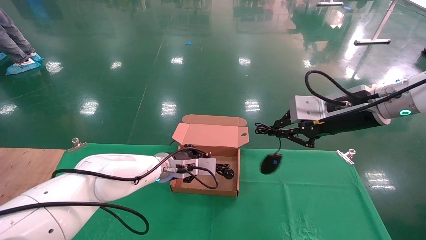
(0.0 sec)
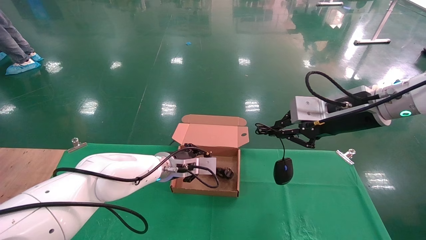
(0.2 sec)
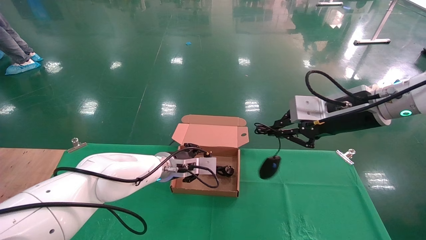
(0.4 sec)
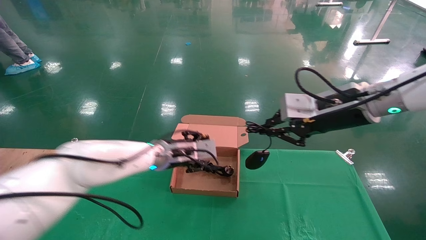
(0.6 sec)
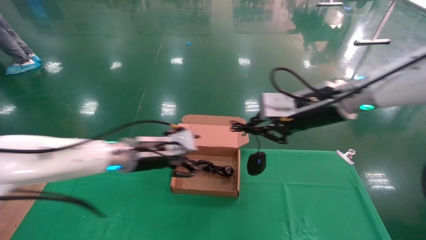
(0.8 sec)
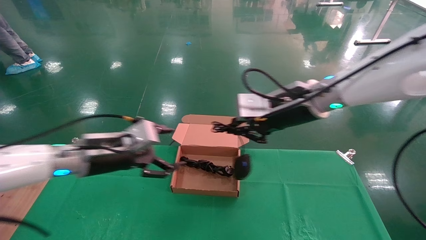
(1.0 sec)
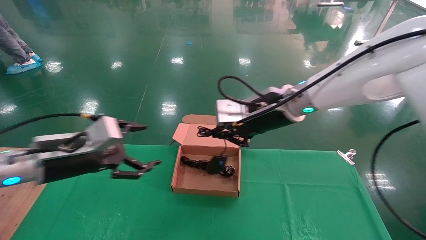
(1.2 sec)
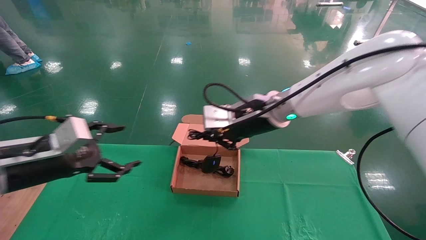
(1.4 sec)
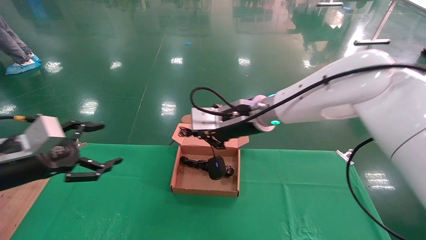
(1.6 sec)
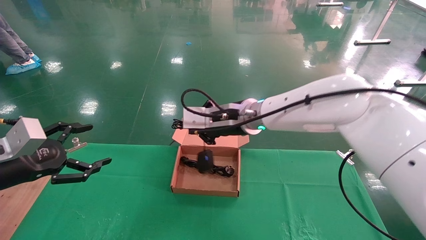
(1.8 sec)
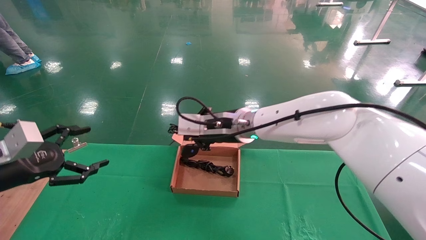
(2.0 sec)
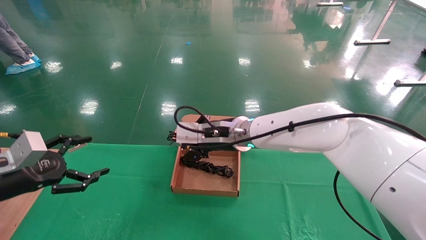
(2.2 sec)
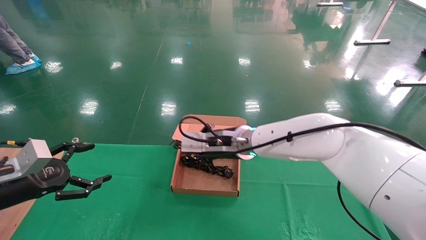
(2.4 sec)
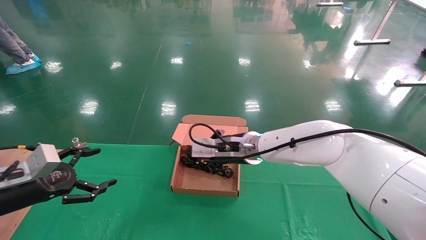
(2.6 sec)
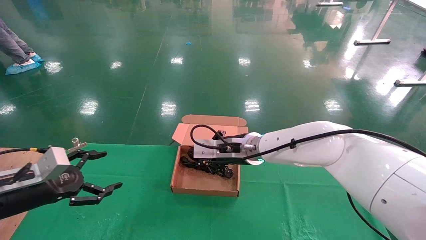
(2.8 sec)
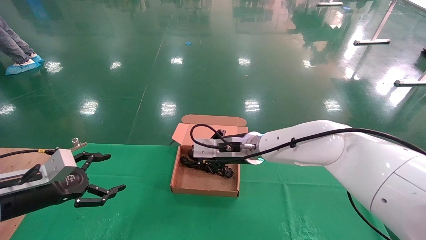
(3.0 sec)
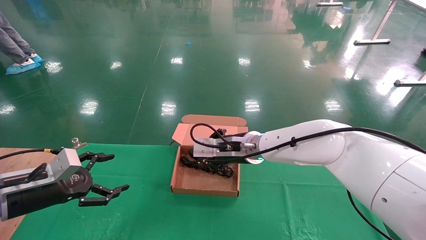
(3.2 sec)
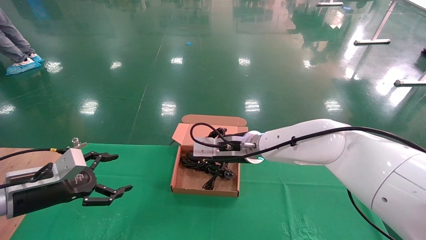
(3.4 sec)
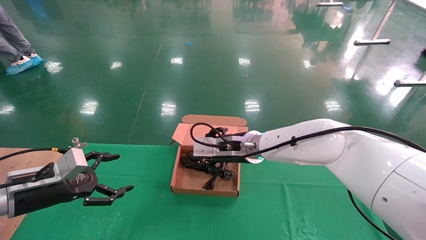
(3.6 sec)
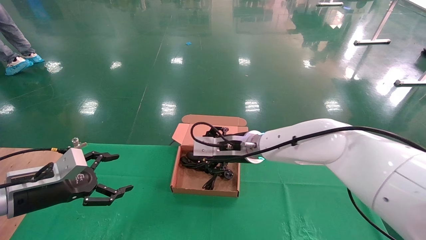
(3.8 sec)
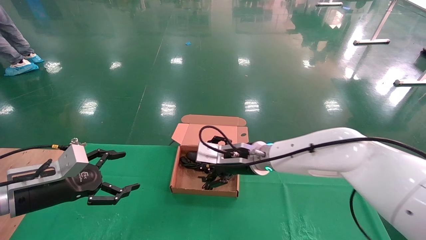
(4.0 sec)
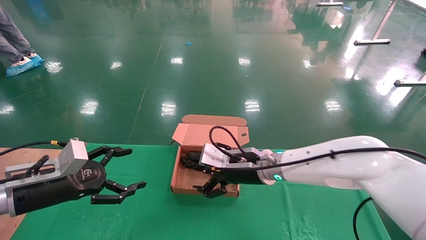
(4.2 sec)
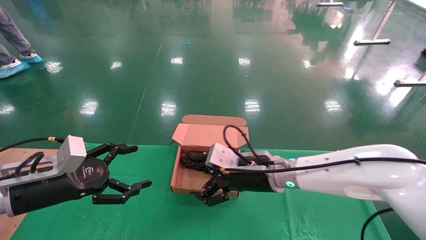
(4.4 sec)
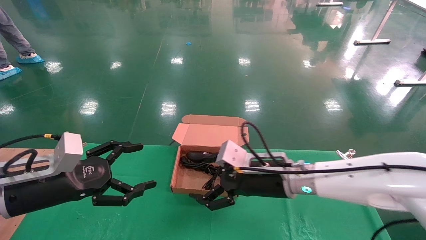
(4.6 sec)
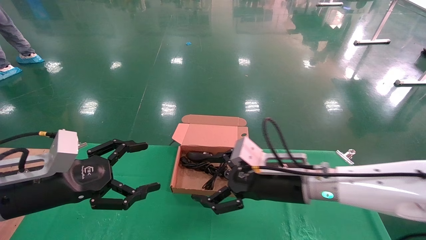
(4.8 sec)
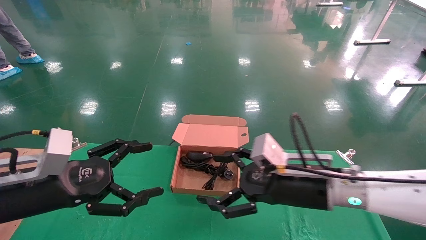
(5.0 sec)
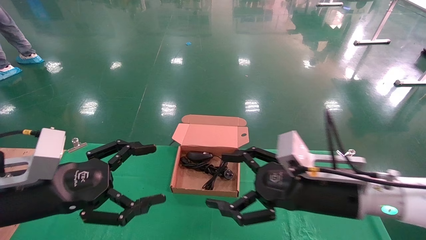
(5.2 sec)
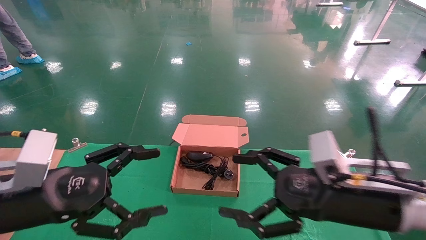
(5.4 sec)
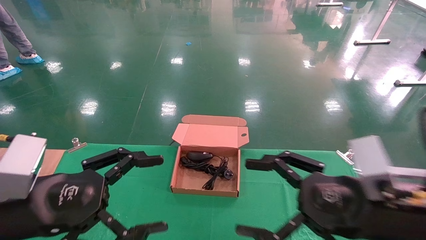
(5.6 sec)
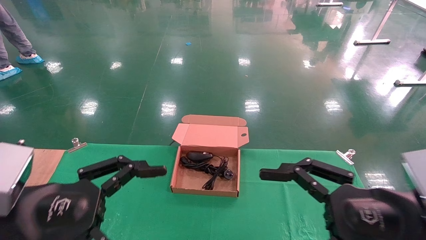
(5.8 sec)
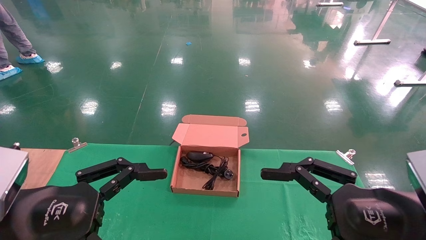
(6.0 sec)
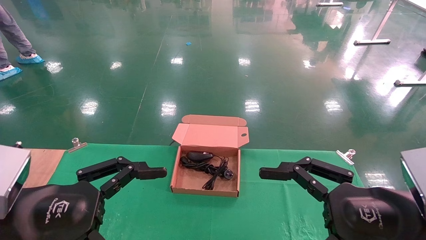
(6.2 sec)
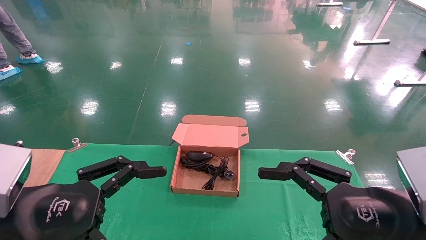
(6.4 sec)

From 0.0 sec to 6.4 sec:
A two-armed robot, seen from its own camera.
Step, from 0.0 sec to 2.6 sec: Place the mouse and power cord into the box.
From 0.0 sec to 1.6 sec: The right gripper heads to the left, covering approximately 20 cm. The left gripper travels to the left and backward by about 30 cm, and opens up.
From 1.6 sec to 3.2 sec: The two grippers go approximately 10 cm downward.
From 3.2 sec to 4.8 sec: The left gripper moves to the right, backward and upward, about 10 cm, while the right gripper shifts roughly 15 cm backward and to the right, and opens its fingers.
From 4.8 sec to 6.4 sec: The right gripper heads backward and to the right, covering about 20 cm, while the left gripper shifts some 10 cm backward.

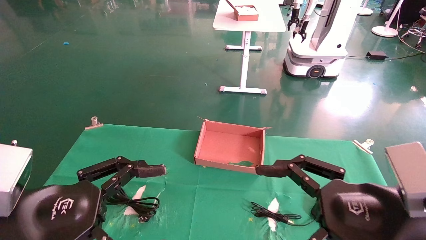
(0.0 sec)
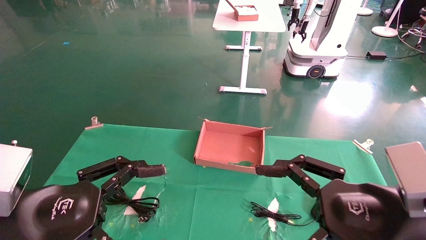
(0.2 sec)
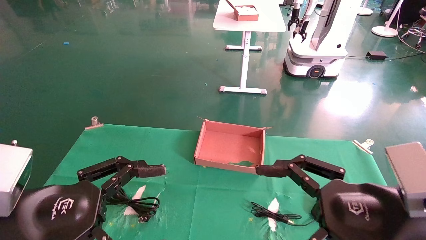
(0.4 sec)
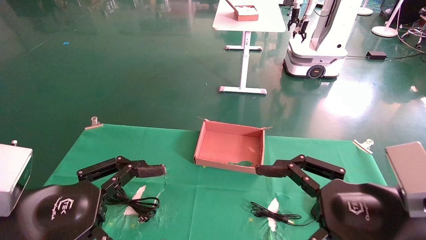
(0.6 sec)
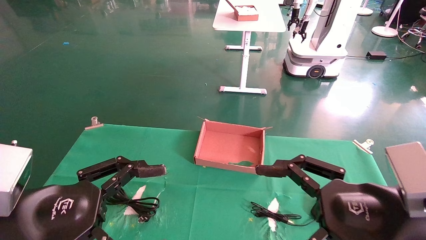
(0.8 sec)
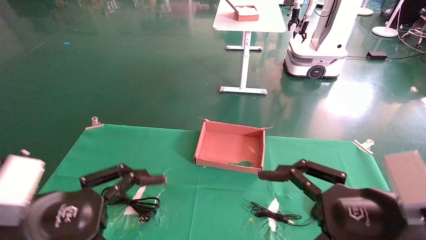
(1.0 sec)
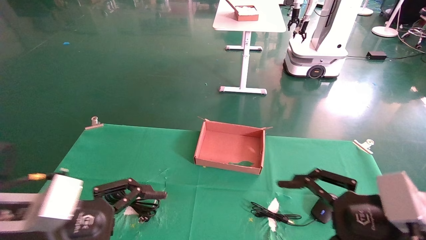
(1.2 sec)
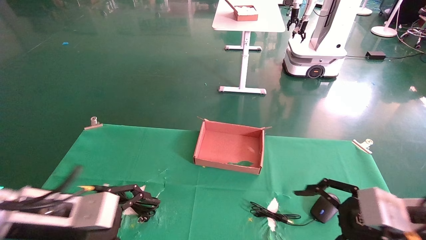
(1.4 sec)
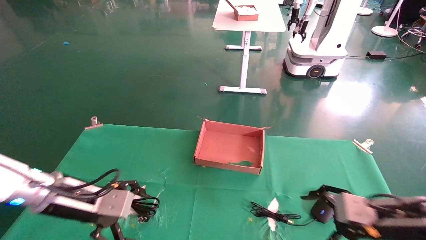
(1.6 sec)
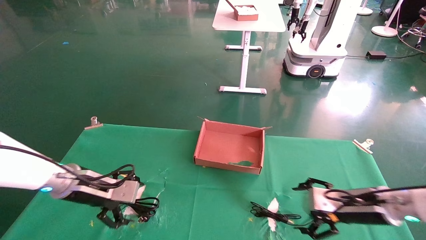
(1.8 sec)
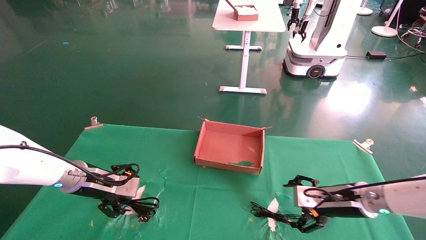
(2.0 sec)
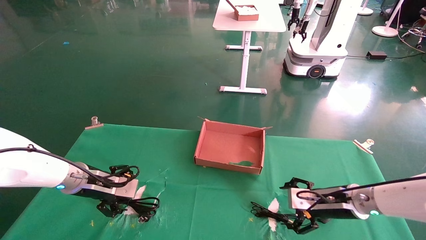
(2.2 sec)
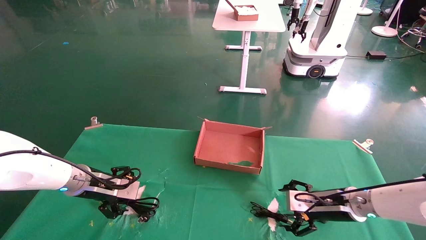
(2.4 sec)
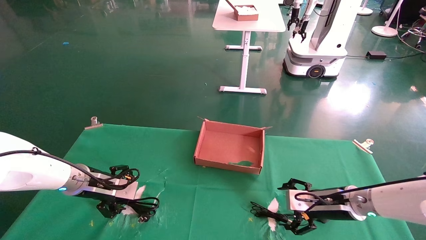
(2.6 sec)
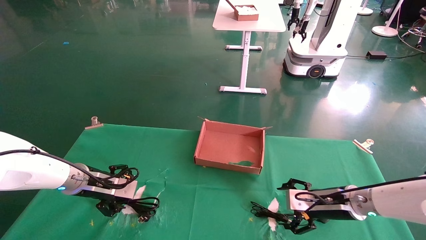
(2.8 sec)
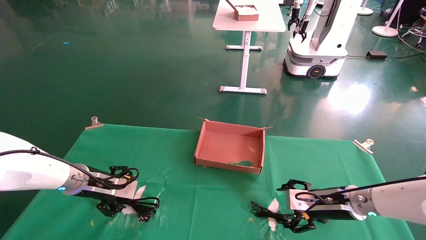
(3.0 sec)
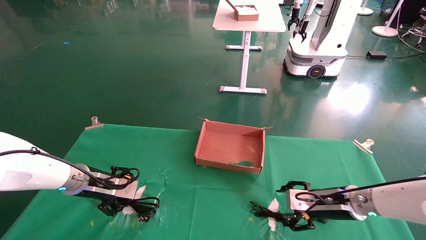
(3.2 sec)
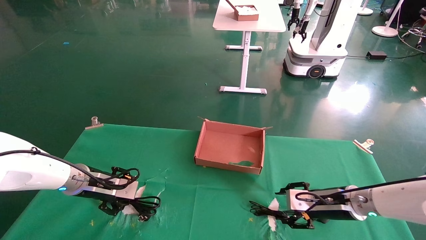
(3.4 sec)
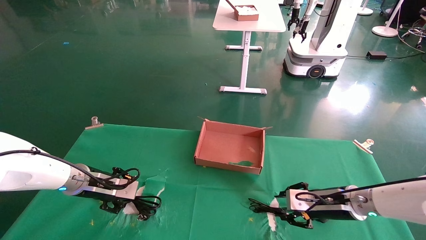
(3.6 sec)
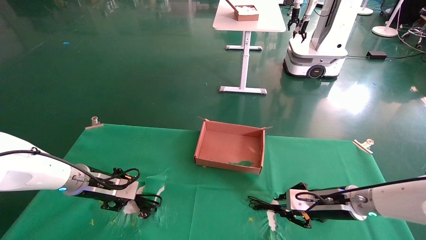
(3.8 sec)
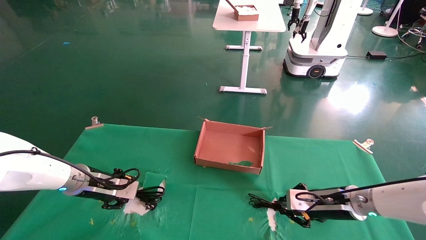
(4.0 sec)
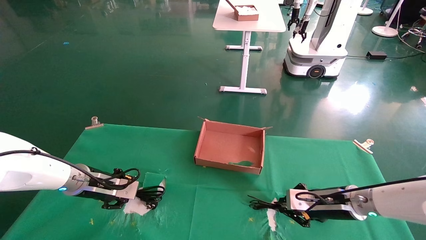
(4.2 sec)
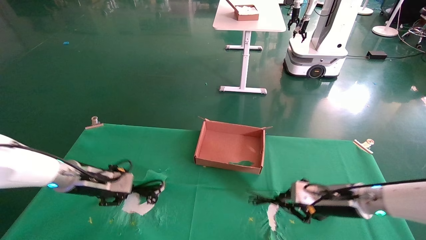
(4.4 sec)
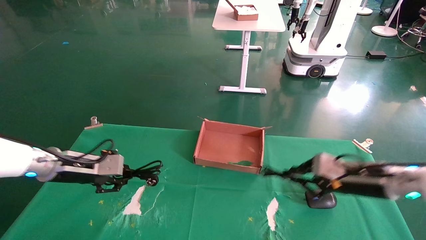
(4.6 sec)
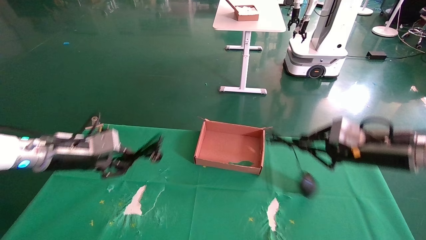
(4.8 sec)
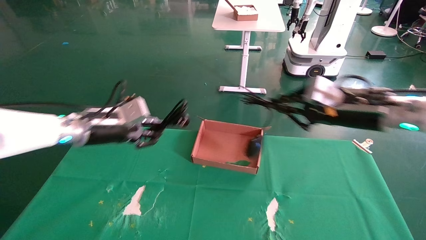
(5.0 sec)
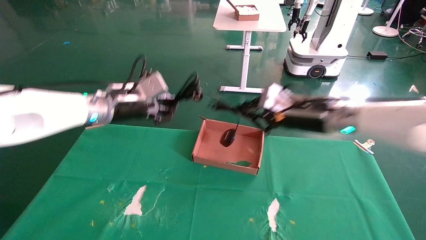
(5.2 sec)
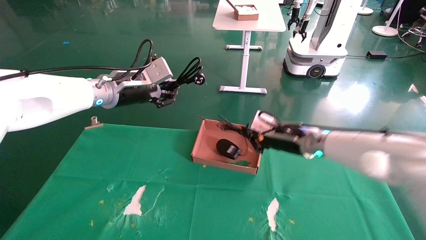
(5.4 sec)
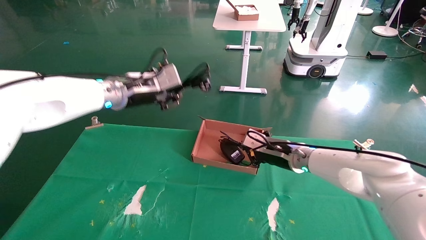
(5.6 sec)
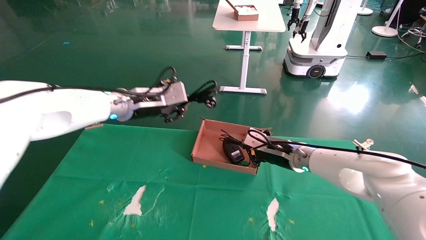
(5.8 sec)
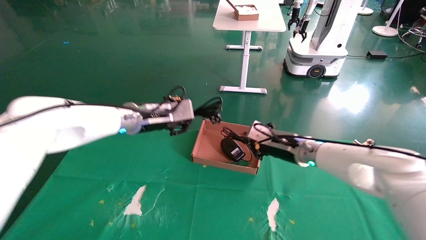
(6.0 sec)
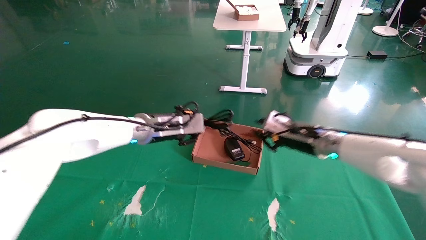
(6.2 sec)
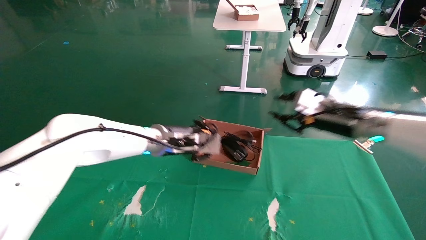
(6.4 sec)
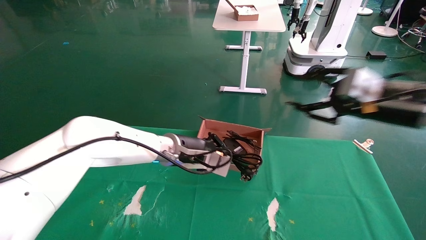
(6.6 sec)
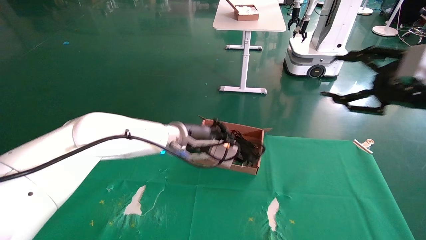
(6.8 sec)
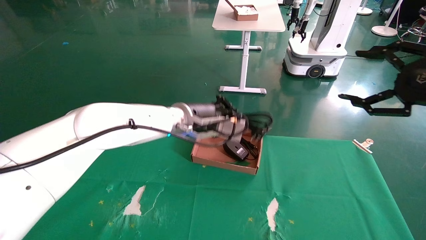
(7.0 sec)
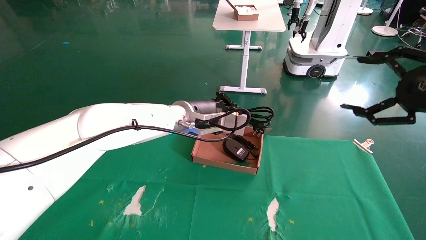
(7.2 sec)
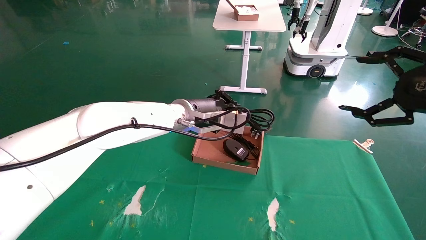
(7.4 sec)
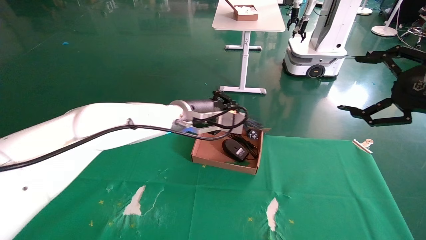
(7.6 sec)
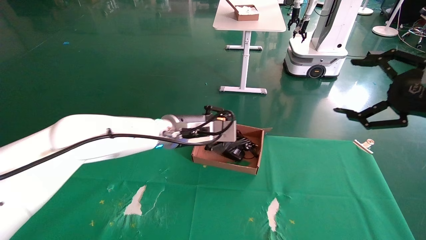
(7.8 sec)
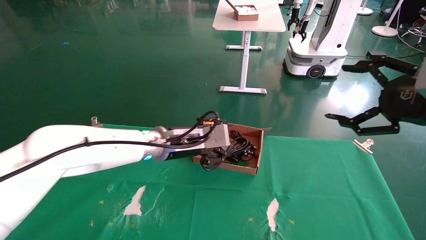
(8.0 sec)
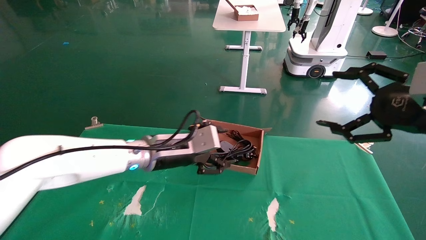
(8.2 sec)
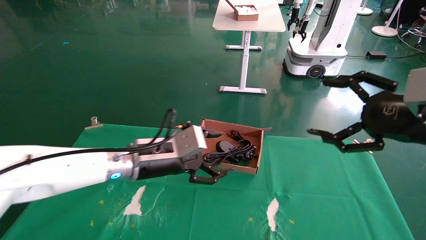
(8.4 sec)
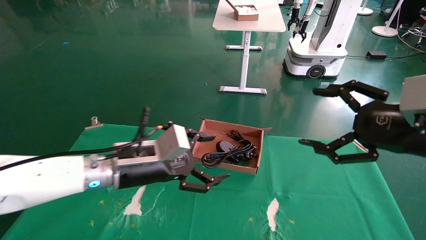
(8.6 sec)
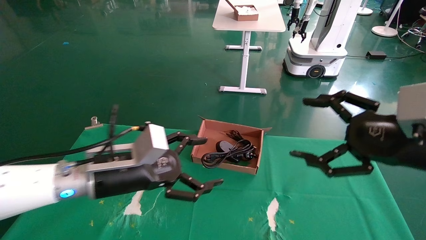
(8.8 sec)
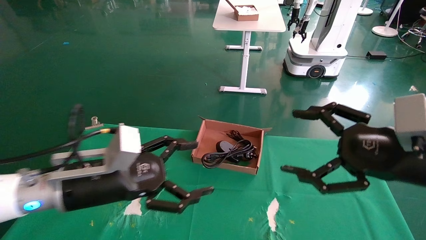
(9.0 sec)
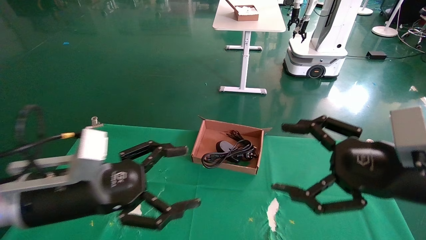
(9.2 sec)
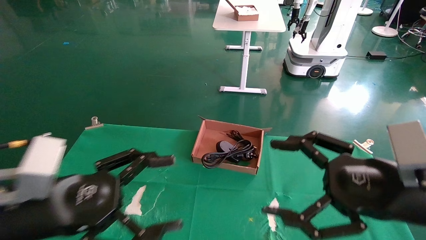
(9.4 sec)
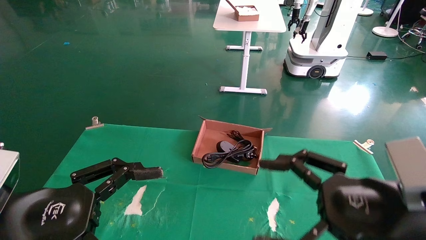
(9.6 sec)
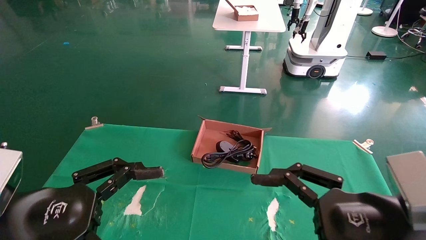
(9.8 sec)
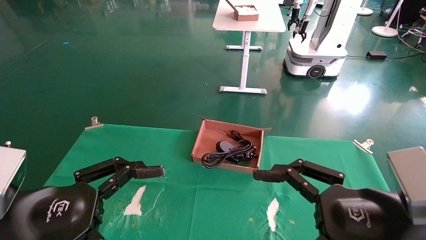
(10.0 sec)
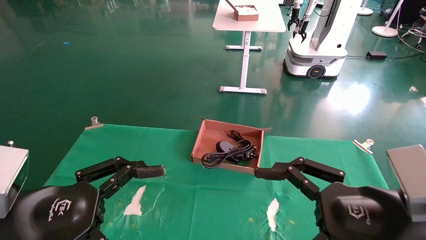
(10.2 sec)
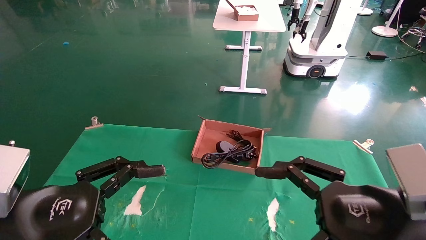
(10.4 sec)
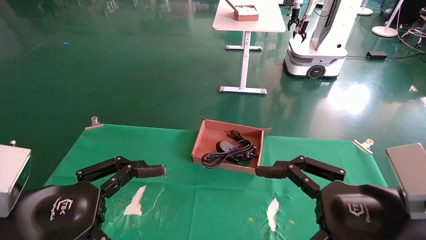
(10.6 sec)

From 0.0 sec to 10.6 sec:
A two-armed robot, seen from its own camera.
Step, from 1.2 sec to 4.0 sec: Grab and lift both the mouse and power cord from the accessory packaging area at the same time.
Step, from 4.2 sec to 8.0 sec: Place the mouse and power cord into the box.
From 0.0 sec to 1.6 sec: The left gripper shifts some 15 cm forward, while the right gripper shifts about 15 cm forward, downward and to the right.
From 1.6 sec to 3.0 sec: The left gripper moves forward, approximately 10 cm. Meanwhile the right gripper is displaced forward and downward by some 10 cm.
From 3.0 sec to 4.6 sec: The right gripper moves upward, approximately 10 cm, and closes up. Meanwhile the left gripper moves upward, about 5 cm, and closes up.
From 4.6 sec to 6.0 sec: The right gripper travels to the left and forward by roughly 15 cm. The left gripper travels to the right and upward by about 20 cm.
From 6.0 sec to 7.6 sec: The left gripper is displaced to the right by about 10 cm, while the right gripper shifts approximately 30 cm backward, to the right and upward, and opens.
From 7.6 sec to 9.0 sec: The left gripper is displaced backward and to the left by approximately 20 cm, and opens, while the right gripper goes roughly 10 cm to the left and downward.
From 9.0 sec to 10.6 sec: The left gripper moves backward and to the left, some 10 cm, while the right gripper goes approximately 5 cm to the left and backward.
